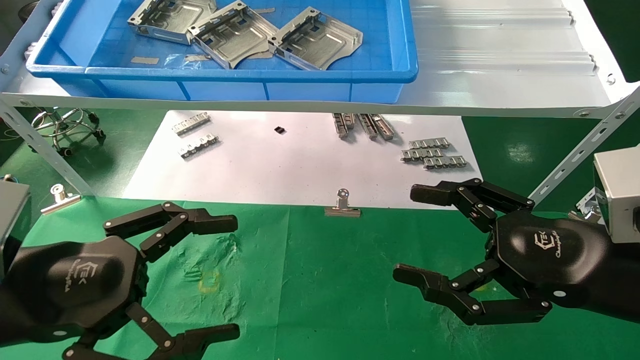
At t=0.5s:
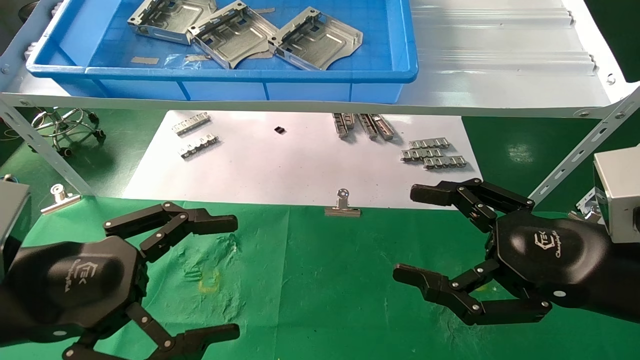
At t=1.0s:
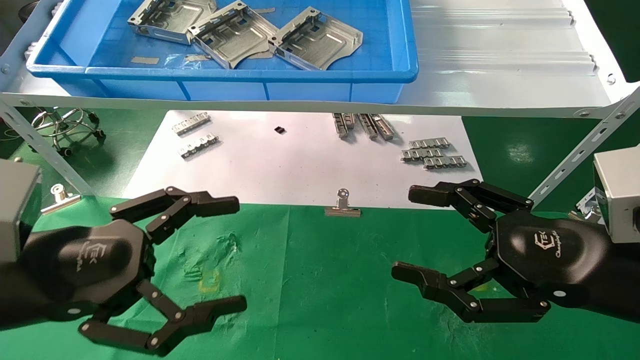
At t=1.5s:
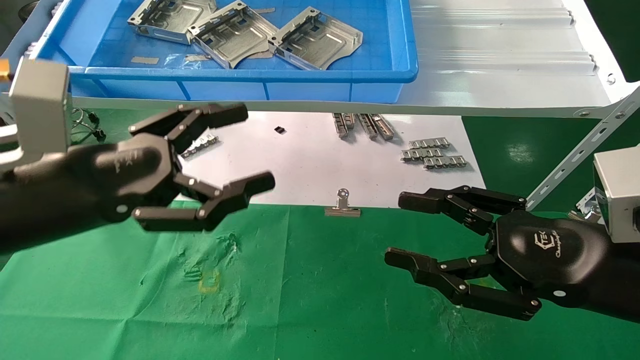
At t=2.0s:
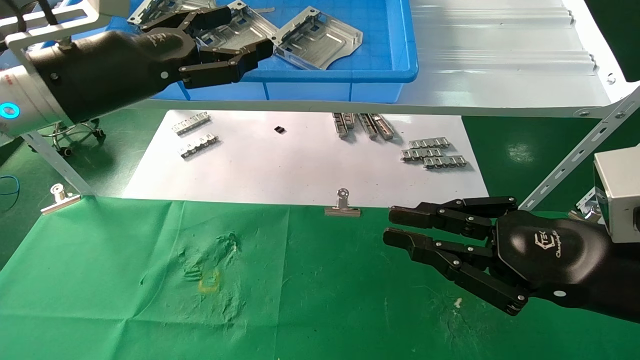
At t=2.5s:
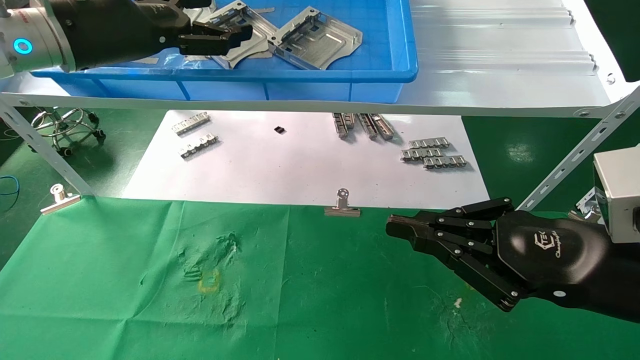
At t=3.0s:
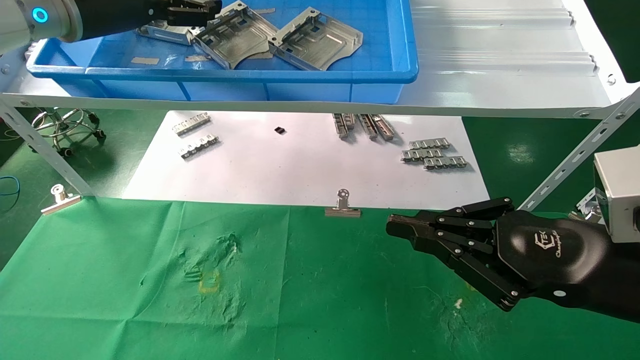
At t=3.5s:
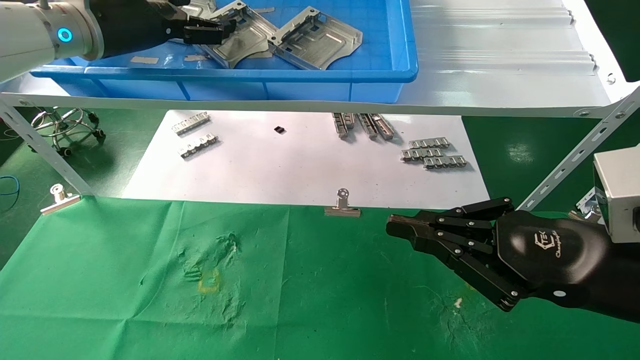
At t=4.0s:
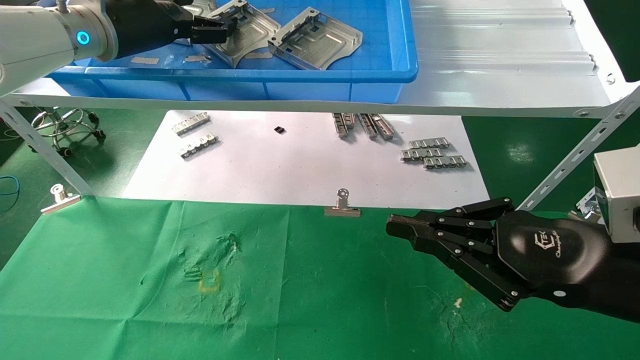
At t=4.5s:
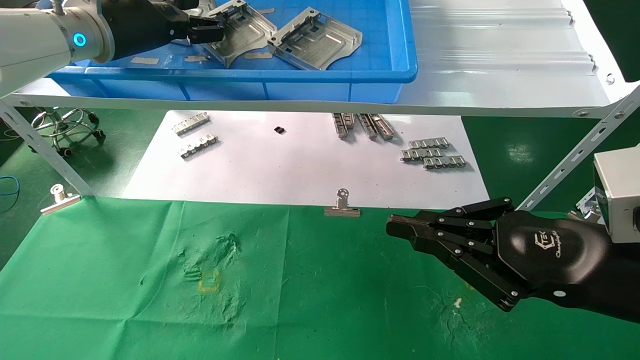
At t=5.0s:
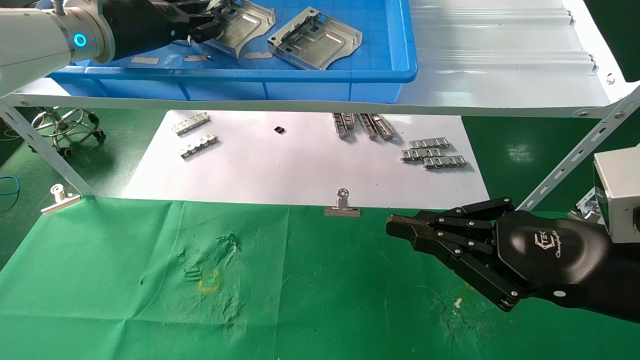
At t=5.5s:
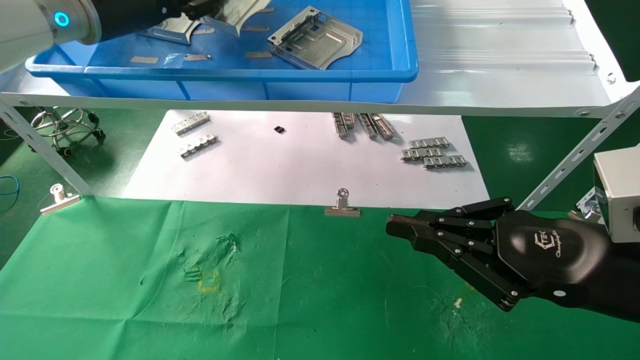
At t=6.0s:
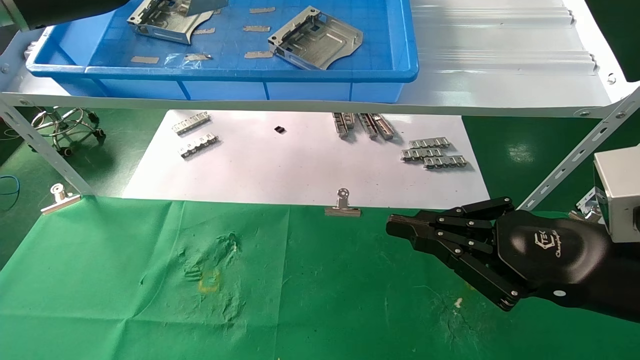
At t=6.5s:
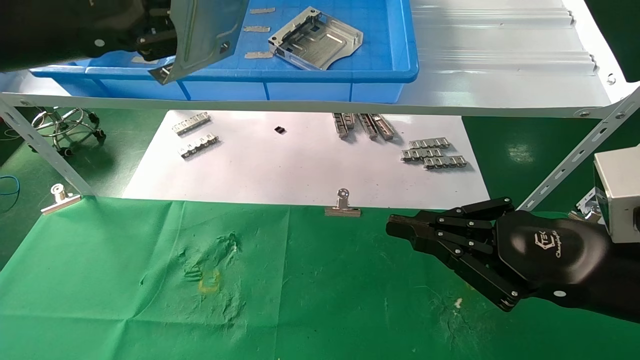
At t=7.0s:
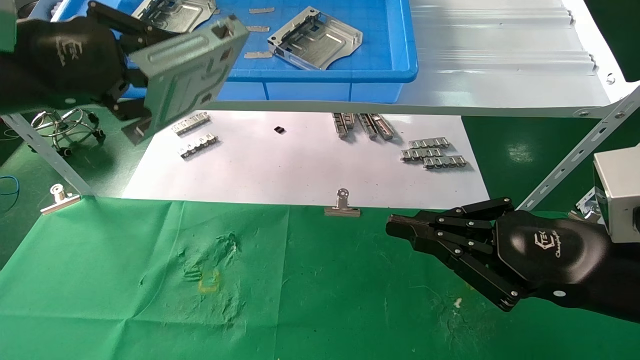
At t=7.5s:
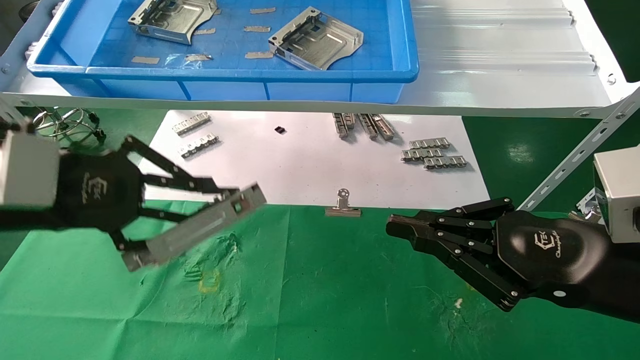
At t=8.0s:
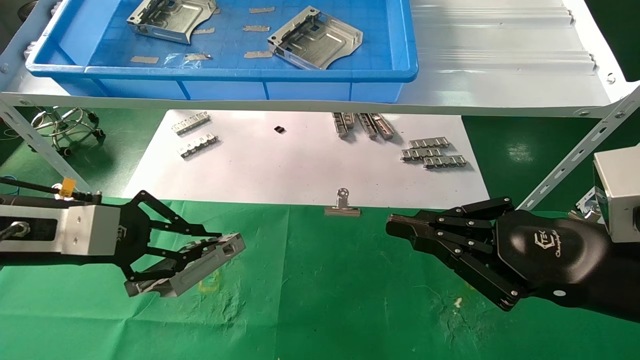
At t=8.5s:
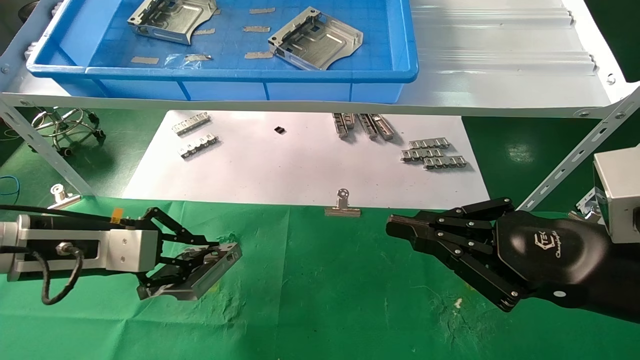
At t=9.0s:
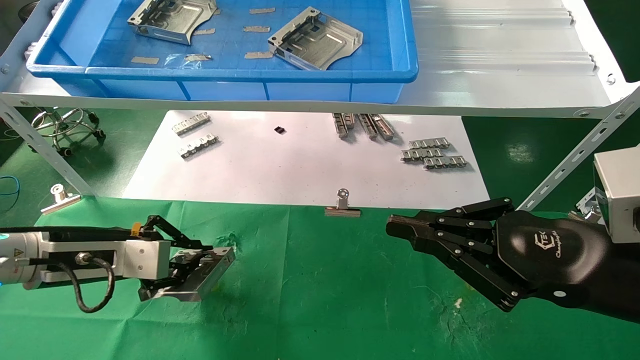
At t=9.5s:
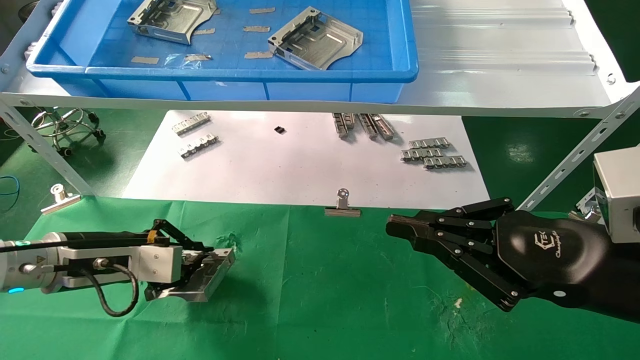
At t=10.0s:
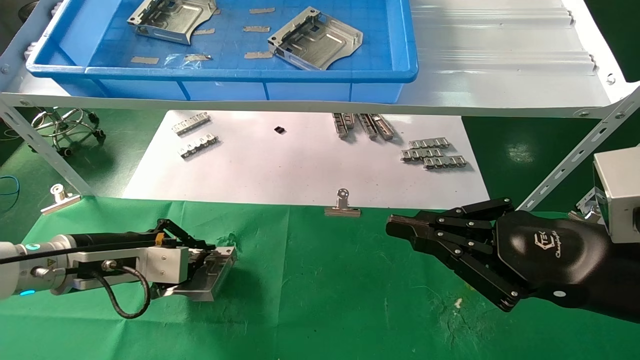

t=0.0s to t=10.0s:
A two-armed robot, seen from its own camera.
Task of the whole recording: use the mechanical arm to pick up the parts and place them on the table.
Step, t=1.5s to t=5.0s: Pick up the hard drive bracket from the feeding area.
t=0.0s to t=2.0s: The left gripper shifts about 20 cm forward and upward, while the right gripper closes up.
t=2.0s to t=4.0s: The left gripper travels forward and upward by about 15 cm.
t=4.0s to t=6.0s: The left gripper goes roughly 10 cm backward, and closes its fingers.
t=6.0s to t=8.0s: The left gripper moves downward, some 20 cm.
t=8.0s to t=10.0s: The left gripper goes about 10 cm downward.

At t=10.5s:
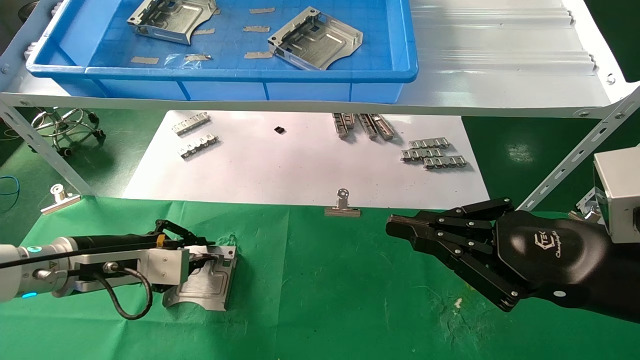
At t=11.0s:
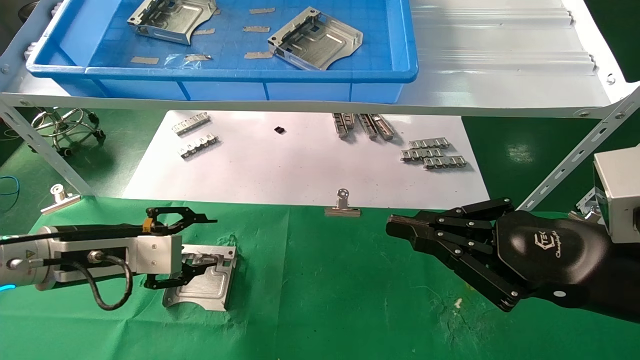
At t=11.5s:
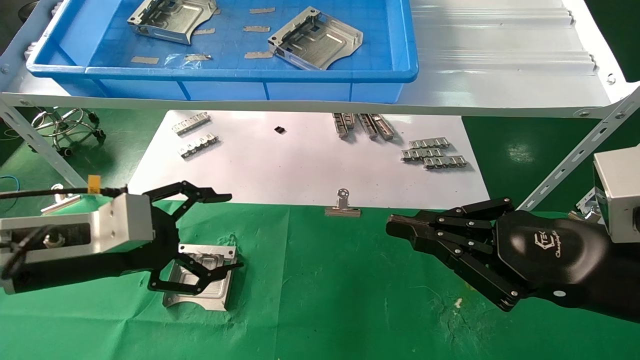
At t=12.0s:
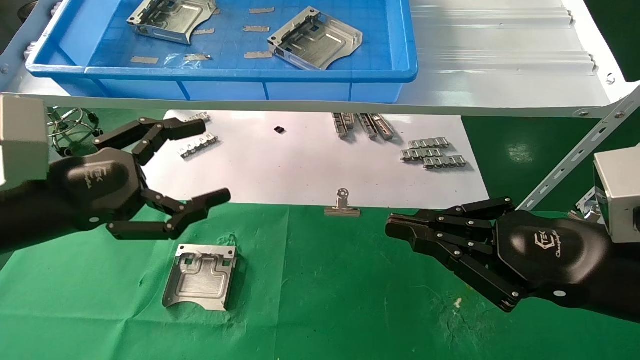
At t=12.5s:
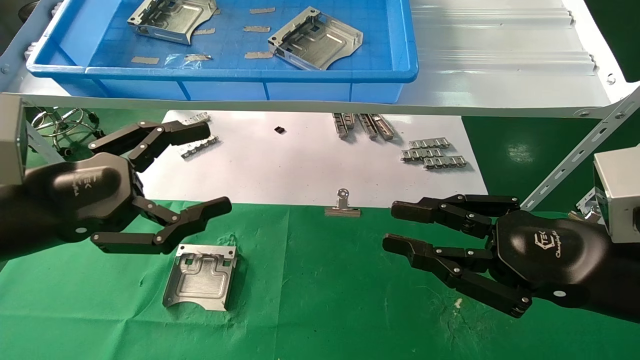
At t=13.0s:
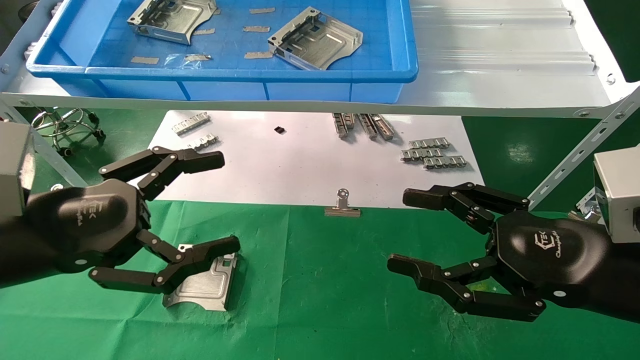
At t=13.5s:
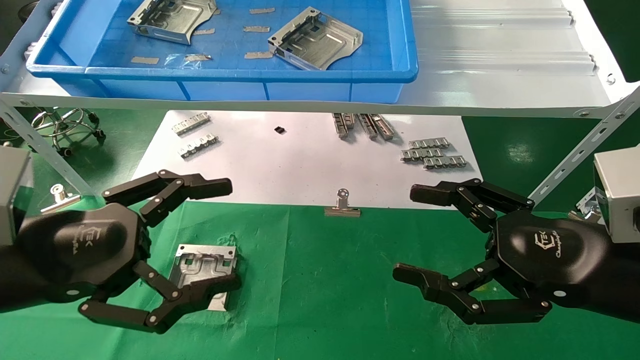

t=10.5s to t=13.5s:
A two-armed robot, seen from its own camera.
Task of the whole recording: use the mechanical arm to pick up the parts and place them on the table.
t=10.5s to t=12.0s: The left gripper heads upward and backward, covering some 10 cm, and opens.
t=12.0s to t=13.5s: The right gripper opens. The left gripper changes place by roughly 5 cm.

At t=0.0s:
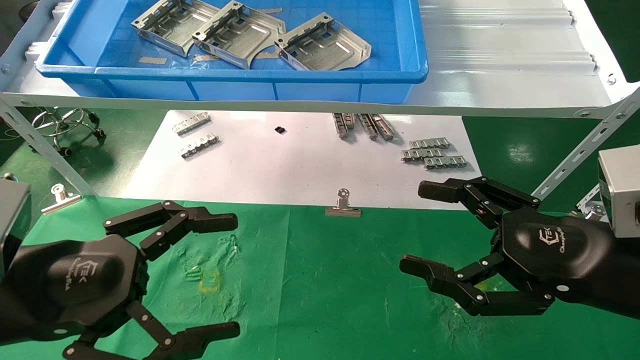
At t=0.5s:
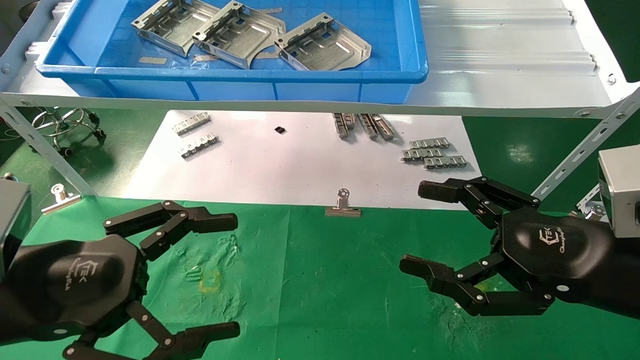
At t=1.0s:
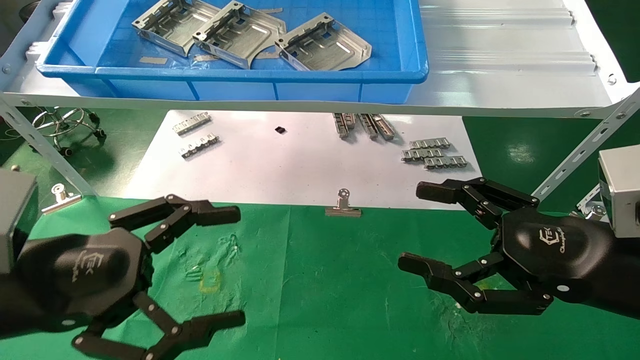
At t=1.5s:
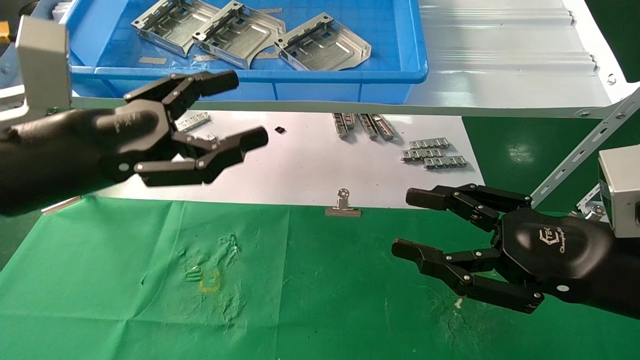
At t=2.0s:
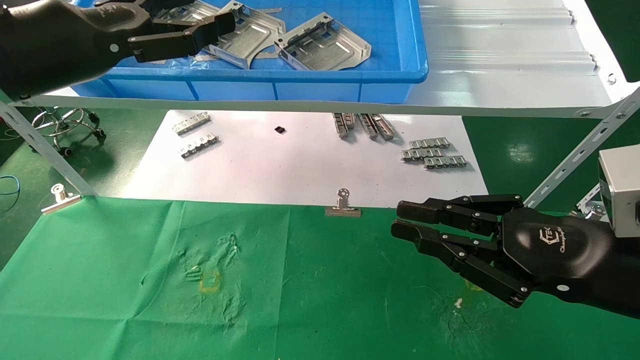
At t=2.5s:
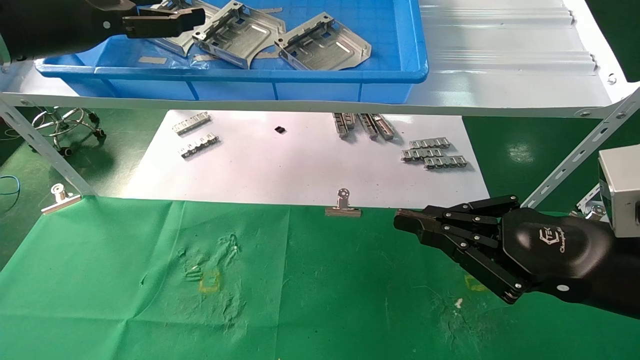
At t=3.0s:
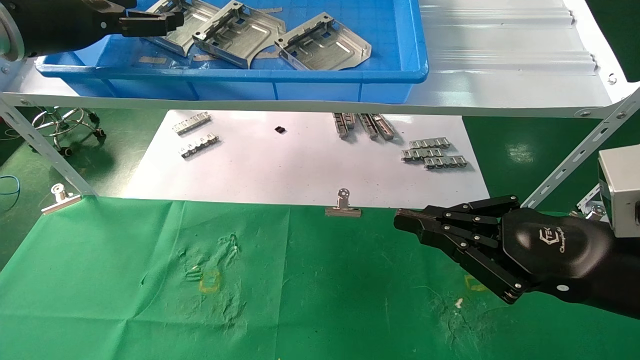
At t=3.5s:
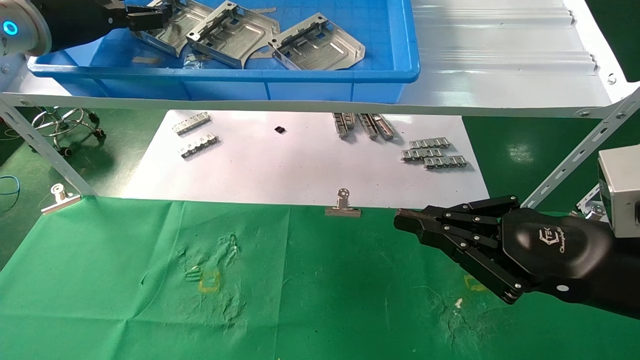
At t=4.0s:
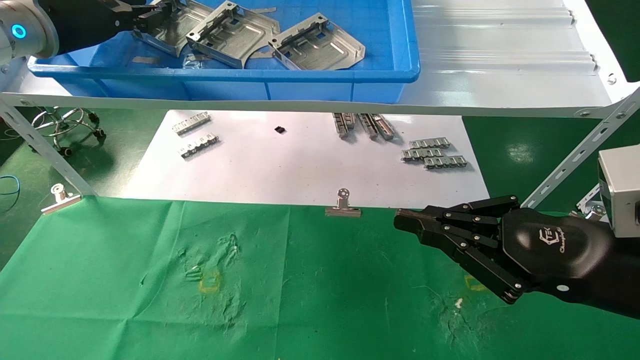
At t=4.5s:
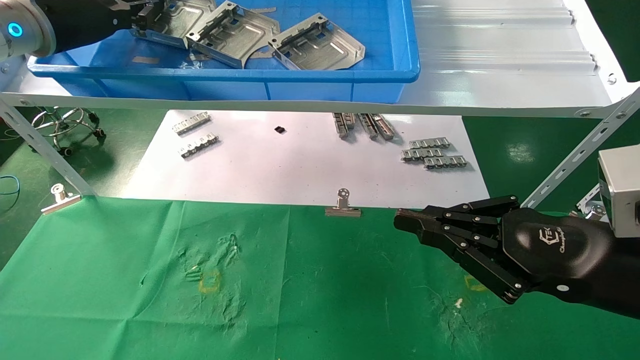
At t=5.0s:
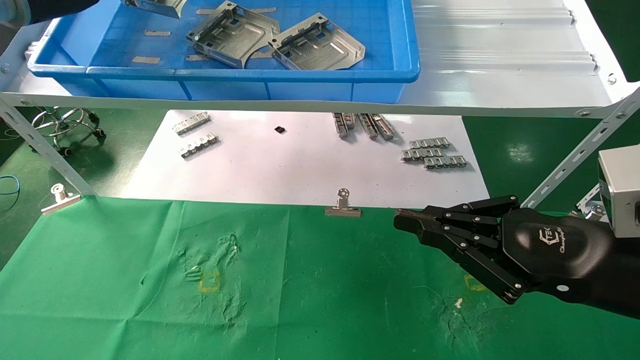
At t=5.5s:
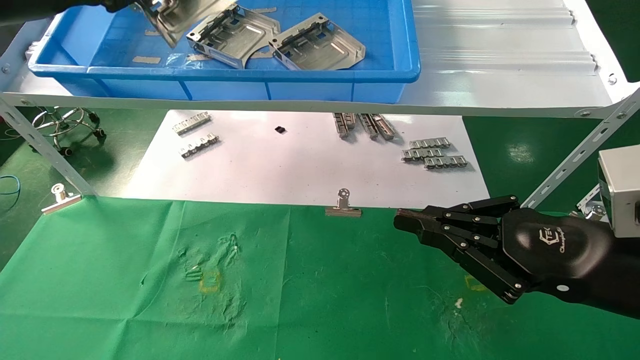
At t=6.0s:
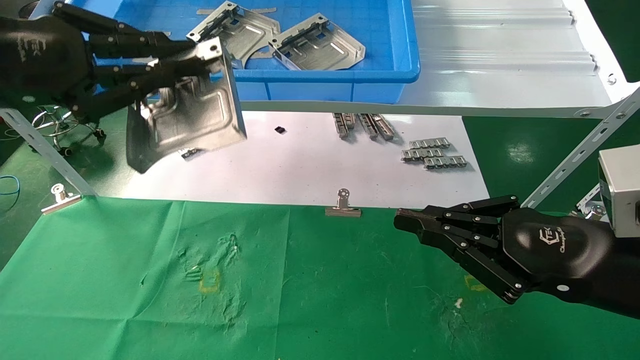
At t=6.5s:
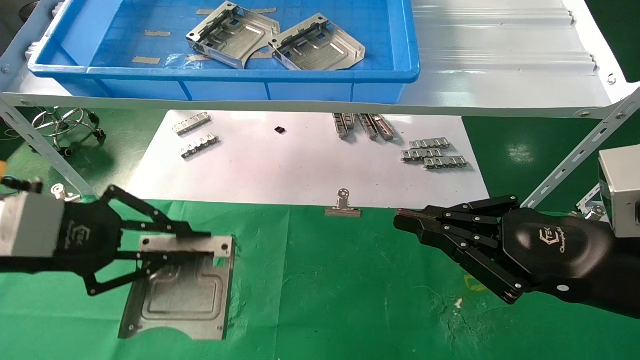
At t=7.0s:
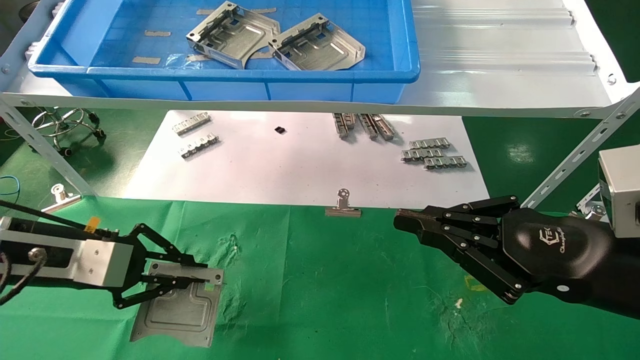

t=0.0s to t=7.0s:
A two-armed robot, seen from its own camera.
Task of the whole recording: use the mechanical arm to pick up the parts and place them on the table.
Step, t=1.5s to t=4.5s: Pick up the hard drive bracket from the feeding area.
t=0.0s to t=2.0s: The right gripper closes. Meanwhile the left gripper travels upward and forward by about 20 cm.
t=2.0s to t=3.5s: The left gripper is displaced forward and upward by approximately 10 cm.
t=3.5s to t=5.0s: The left gripper closes.
t=5.0s to t=7.0s: The left gripper is displaced downward by approximately 25 cm.
